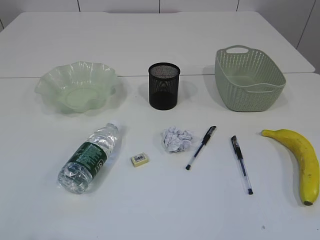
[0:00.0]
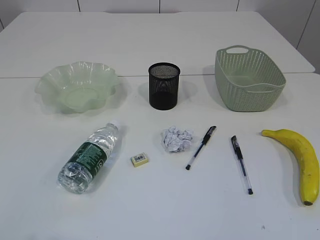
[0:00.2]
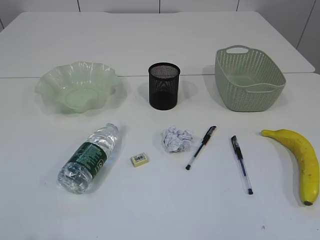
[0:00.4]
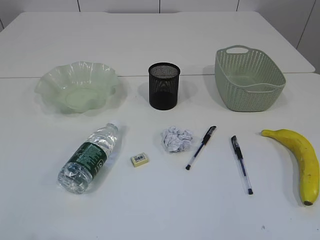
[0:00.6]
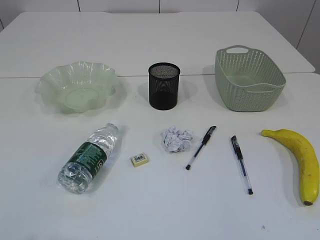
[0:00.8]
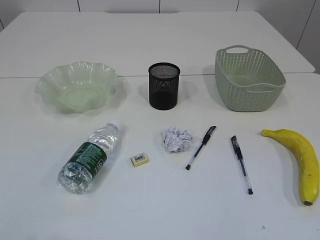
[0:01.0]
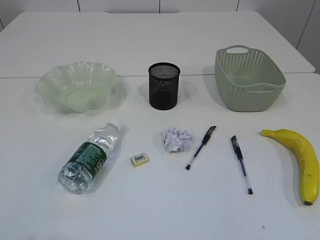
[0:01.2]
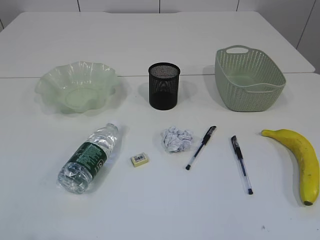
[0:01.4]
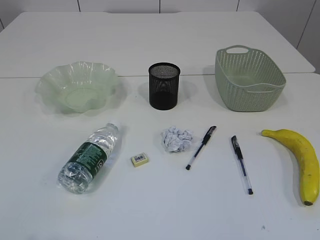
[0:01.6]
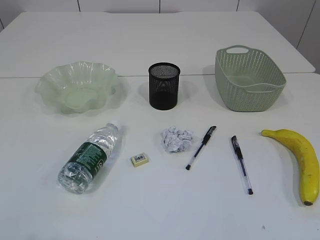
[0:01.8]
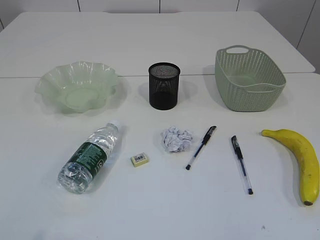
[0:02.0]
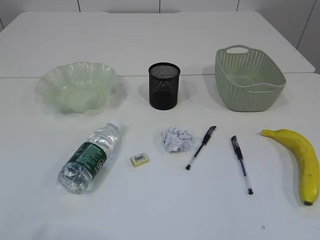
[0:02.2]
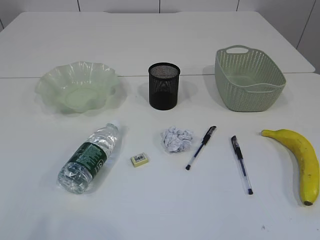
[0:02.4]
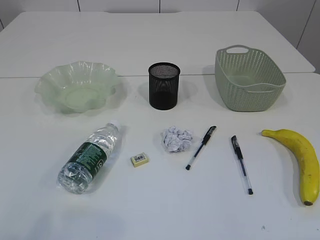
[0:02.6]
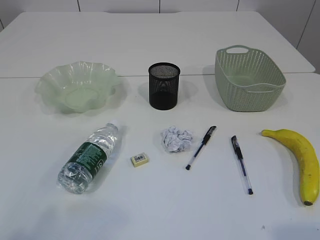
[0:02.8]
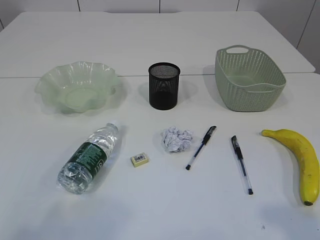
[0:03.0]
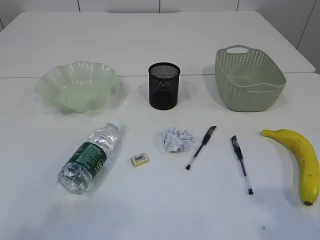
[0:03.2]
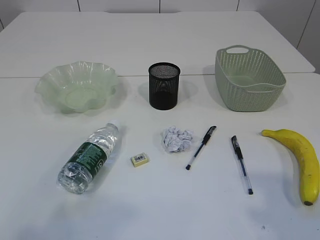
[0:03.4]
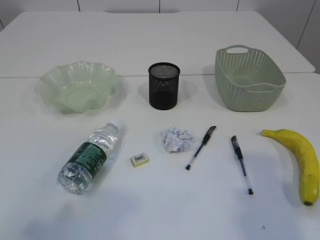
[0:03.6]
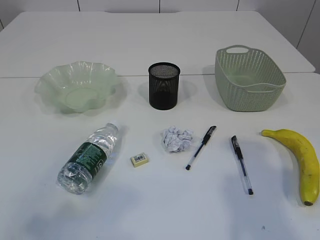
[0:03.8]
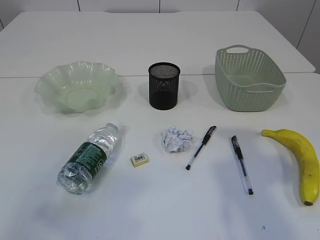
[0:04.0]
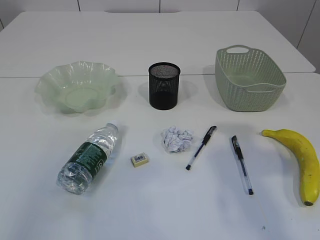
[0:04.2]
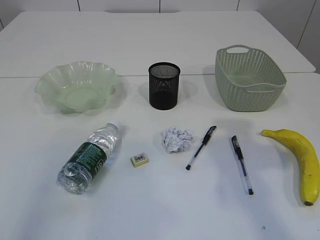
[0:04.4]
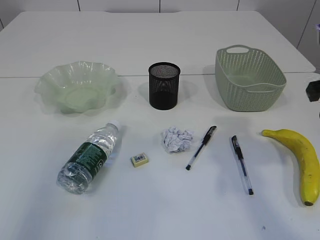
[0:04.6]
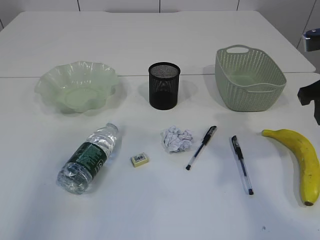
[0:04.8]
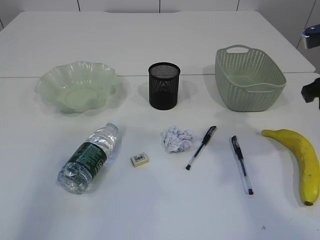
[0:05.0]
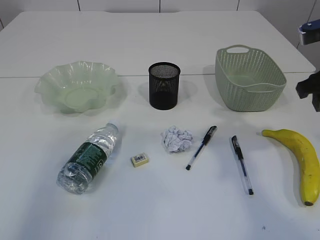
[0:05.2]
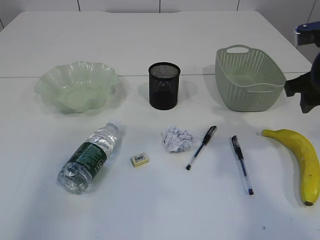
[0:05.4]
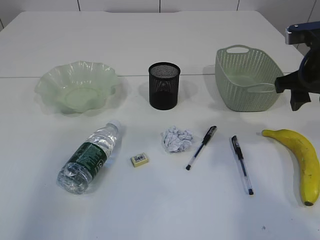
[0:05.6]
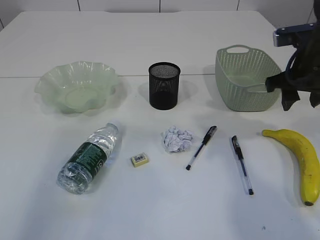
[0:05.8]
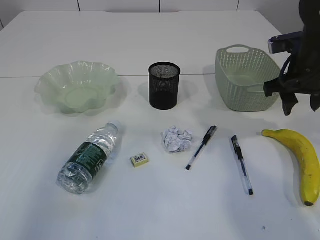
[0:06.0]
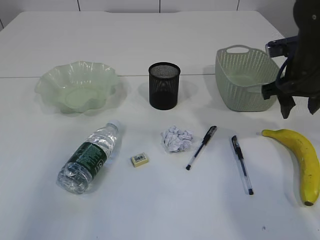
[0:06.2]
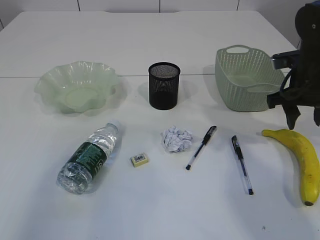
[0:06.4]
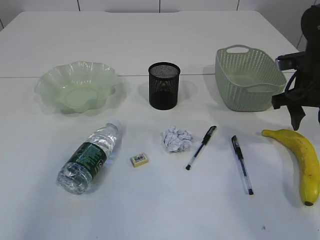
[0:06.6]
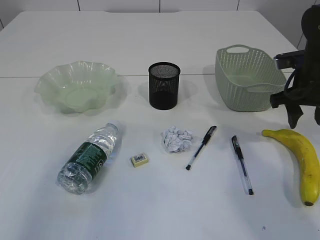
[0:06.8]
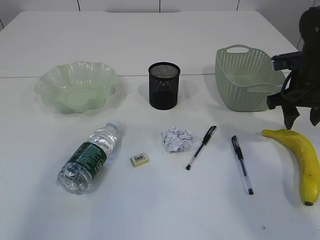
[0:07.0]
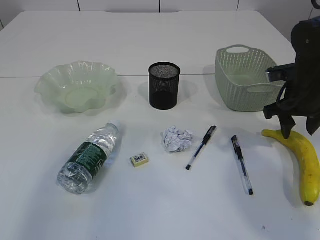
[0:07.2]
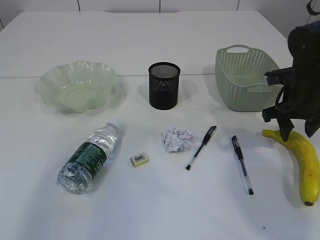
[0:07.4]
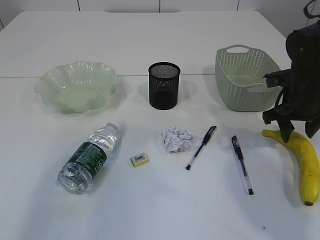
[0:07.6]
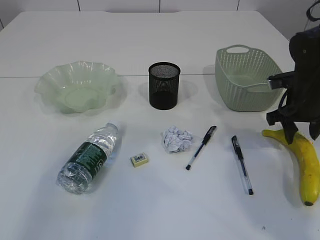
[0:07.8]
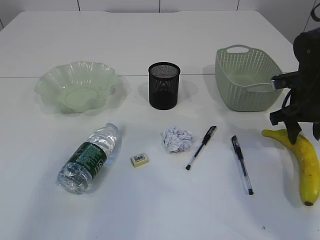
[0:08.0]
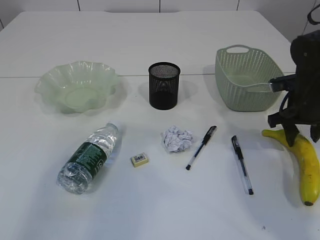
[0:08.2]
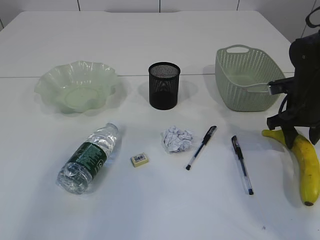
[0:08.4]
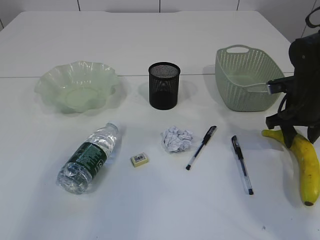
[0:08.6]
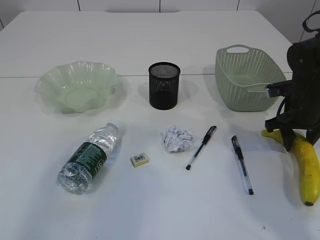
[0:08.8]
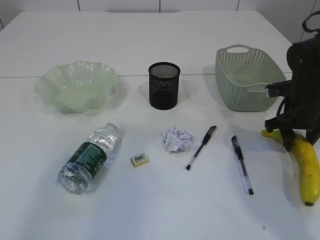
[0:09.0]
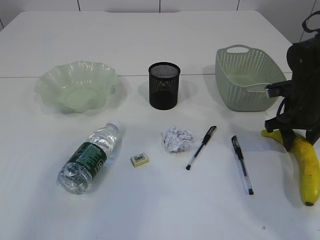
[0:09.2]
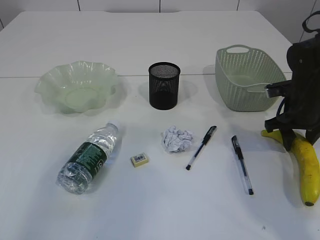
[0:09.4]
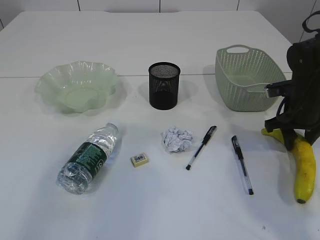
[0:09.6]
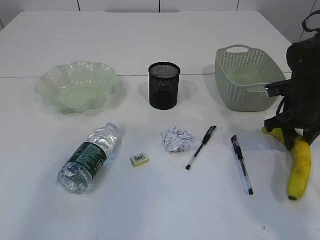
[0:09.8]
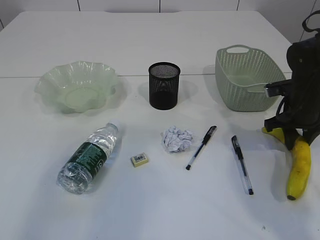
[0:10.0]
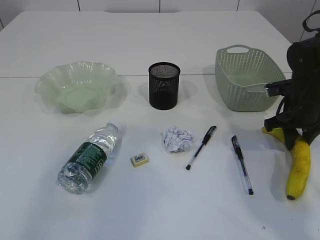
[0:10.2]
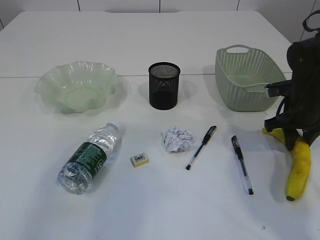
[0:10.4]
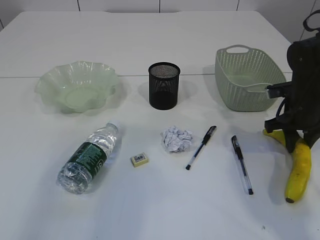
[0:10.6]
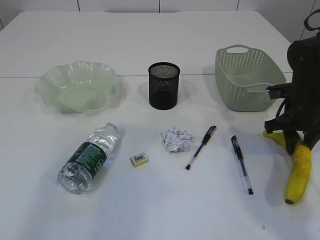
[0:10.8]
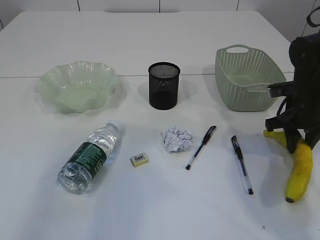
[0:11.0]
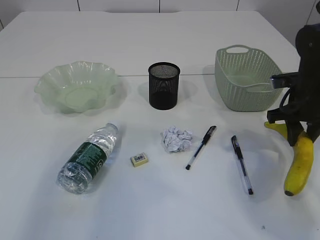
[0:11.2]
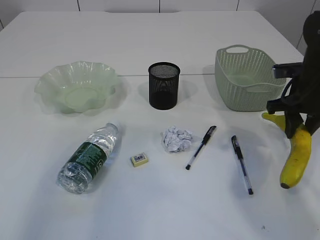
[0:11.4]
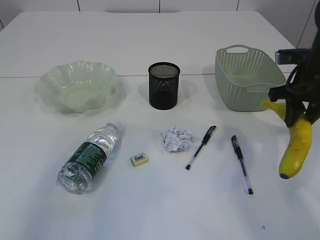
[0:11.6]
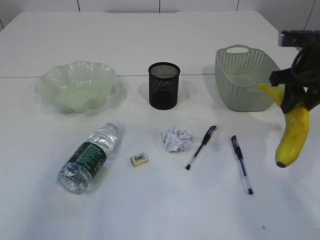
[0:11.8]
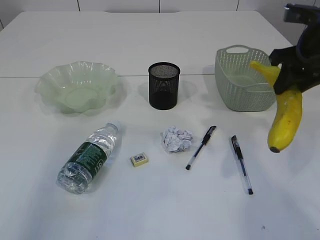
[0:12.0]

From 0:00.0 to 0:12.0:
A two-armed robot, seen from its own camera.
From 0:03.0 to 0:04.4: The right gripper moves forward, about 20 cm.
From 0:04.4 to 0:06.0: The right gripper travels forward and downward by about 15 cm.
From 0:06.0 to 0:07.6: The right gripper travels downward by some 5 cm.
From 0:07.6 to 0:09.0: There are only small adjustments of the grippers.
From 0:09.0 to 0:10.4: Neither gripper changes place.
From 0:10.4 to 0:12.0: The right gripper heads upward, covering some 15 cm.

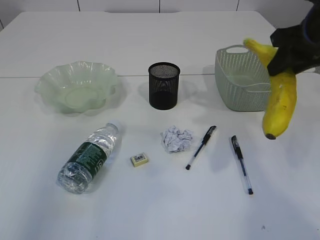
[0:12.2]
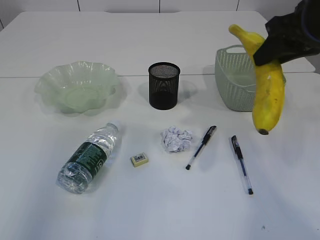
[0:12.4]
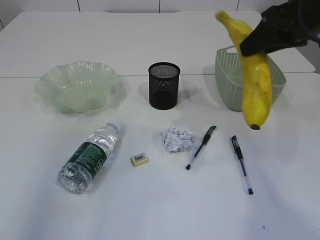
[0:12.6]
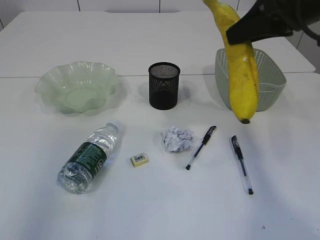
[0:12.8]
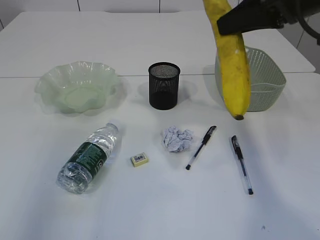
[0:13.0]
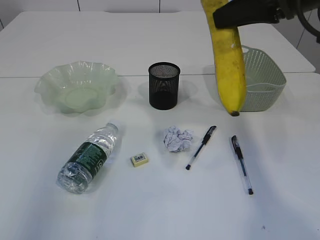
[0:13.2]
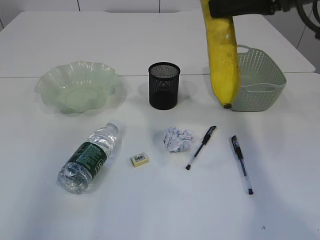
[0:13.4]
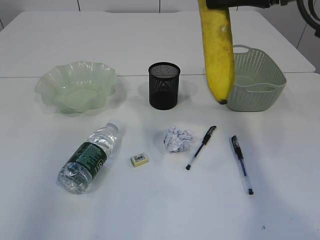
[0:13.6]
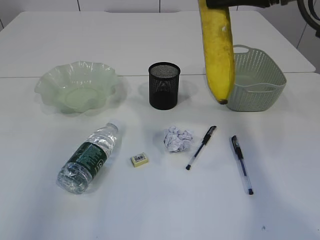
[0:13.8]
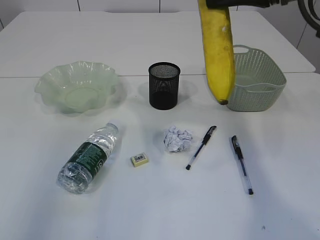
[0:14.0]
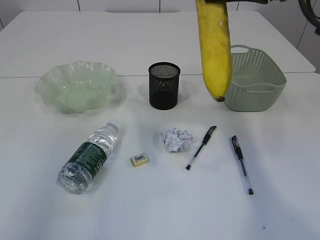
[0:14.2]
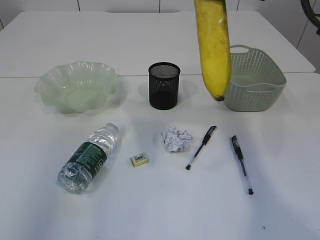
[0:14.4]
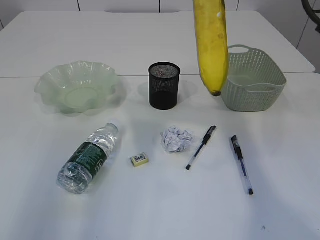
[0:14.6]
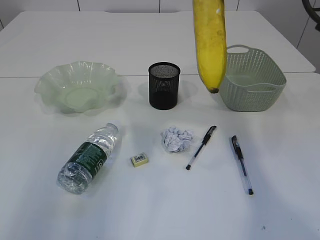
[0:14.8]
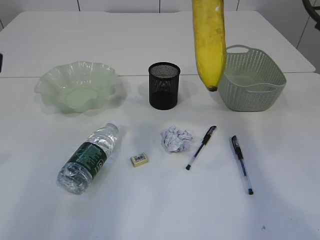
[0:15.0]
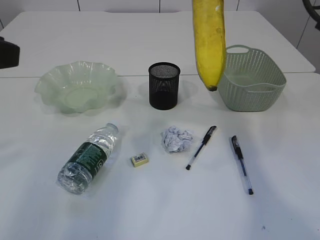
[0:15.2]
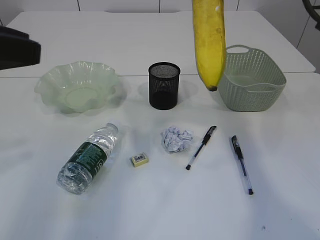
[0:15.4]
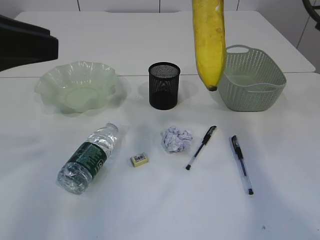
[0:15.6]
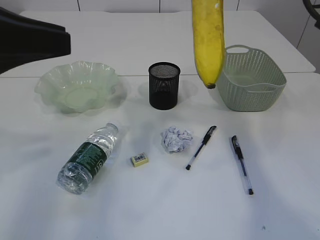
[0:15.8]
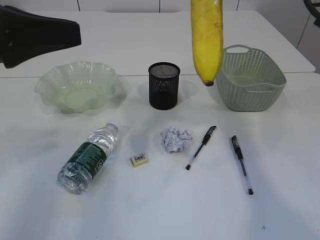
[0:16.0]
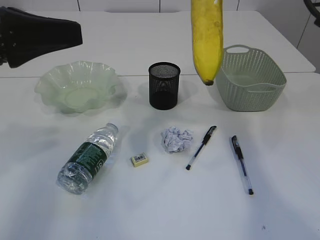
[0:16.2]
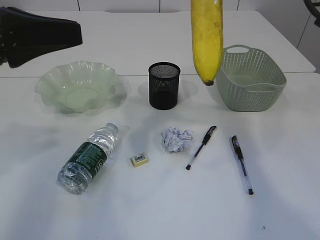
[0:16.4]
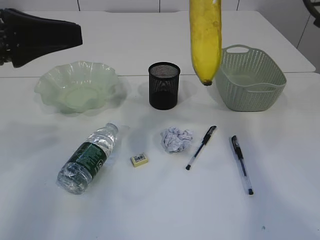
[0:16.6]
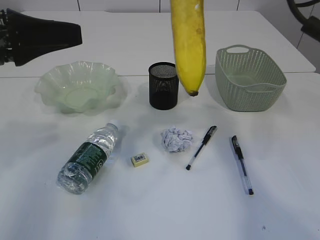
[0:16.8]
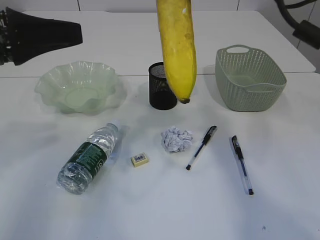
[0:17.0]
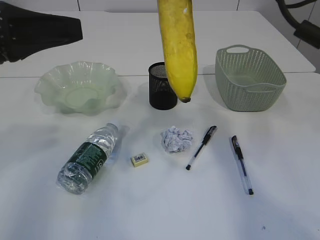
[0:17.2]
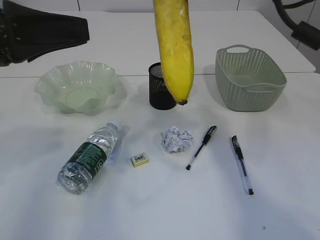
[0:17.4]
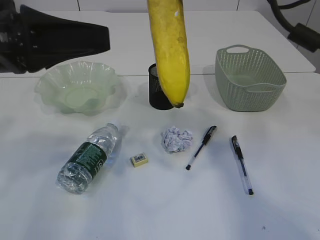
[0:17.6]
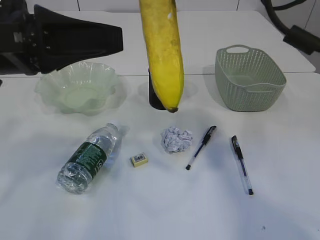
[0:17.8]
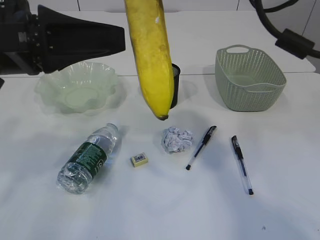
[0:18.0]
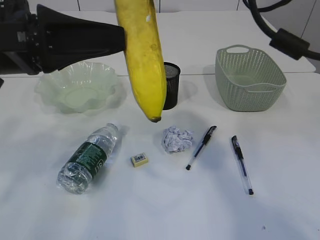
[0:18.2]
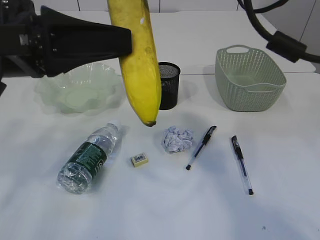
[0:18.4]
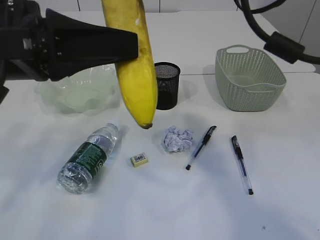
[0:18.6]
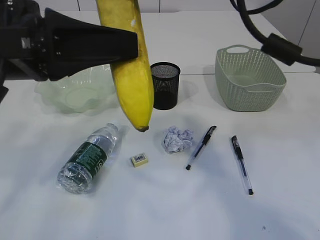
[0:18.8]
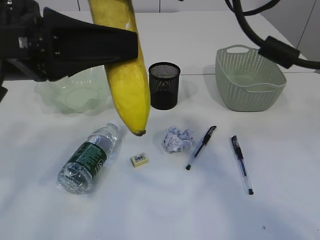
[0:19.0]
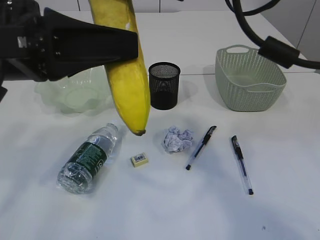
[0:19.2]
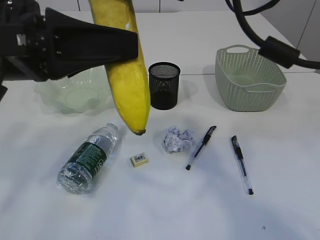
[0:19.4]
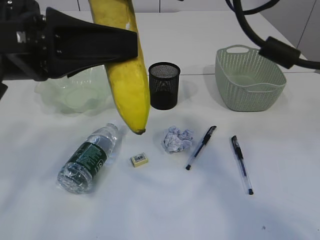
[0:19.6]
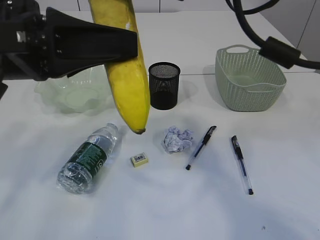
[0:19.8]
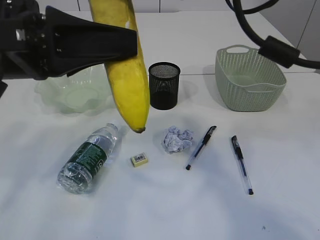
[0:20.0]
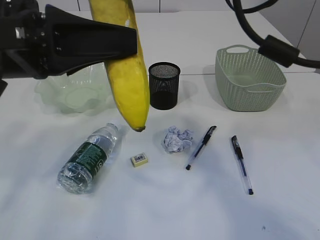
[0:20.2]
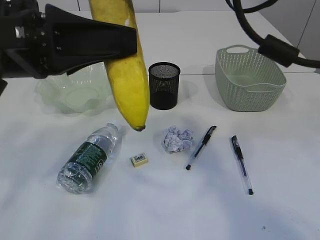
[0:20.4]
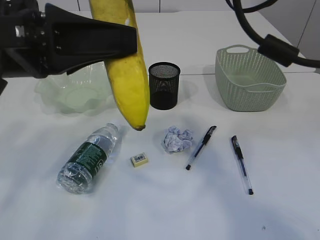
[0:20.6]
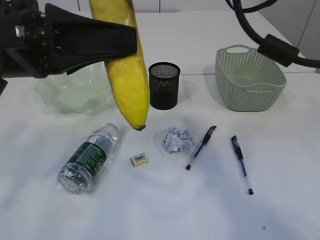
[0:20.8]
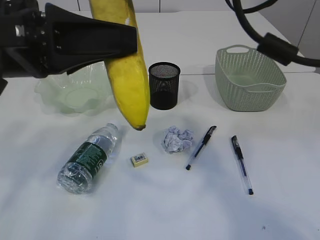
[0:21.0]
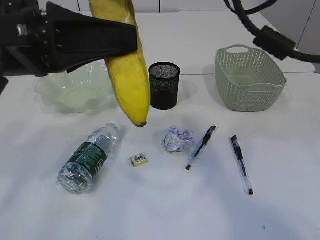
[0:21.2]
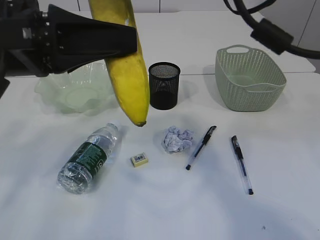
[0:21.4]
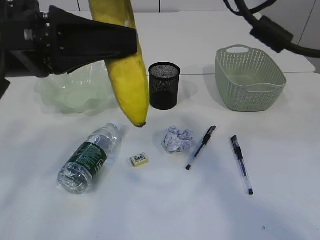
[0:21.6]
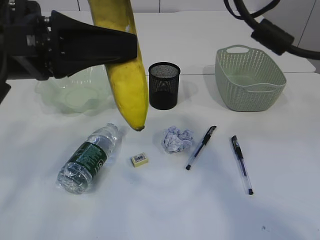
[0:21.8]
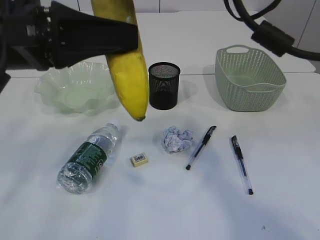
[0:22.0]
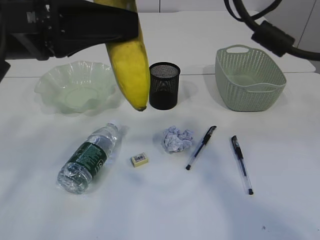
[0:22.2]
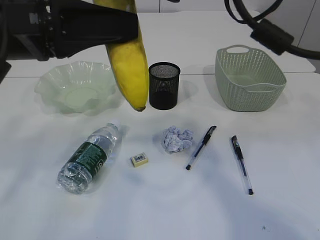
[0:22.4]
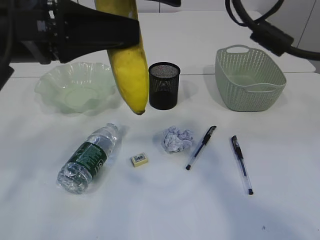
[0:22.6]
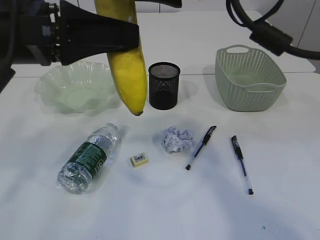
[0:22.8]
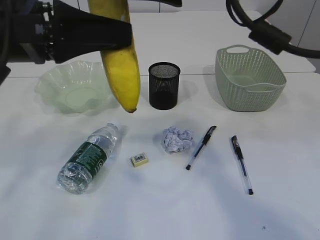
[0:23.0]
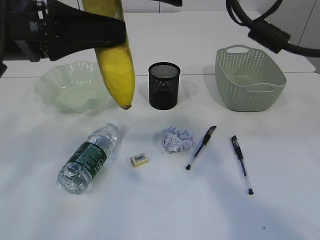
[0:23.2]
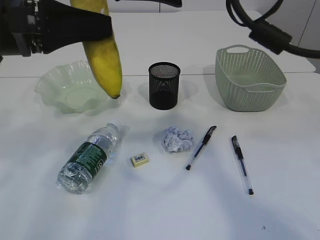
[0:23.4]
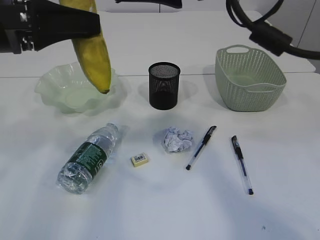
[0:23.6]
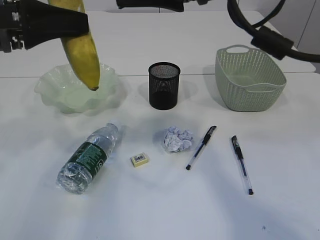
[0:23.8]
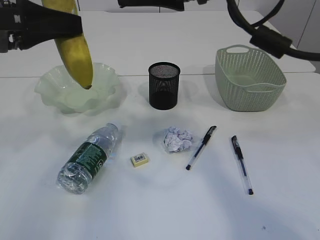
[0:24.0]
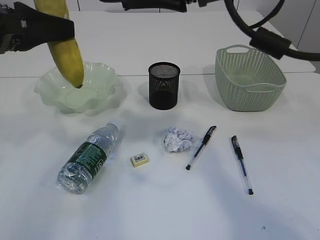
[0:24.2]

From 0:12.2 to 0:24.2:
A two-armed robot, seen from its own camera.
Step, from 0:12.2 to 0:23.0: Hand over the banana.
From 0:12.2 to 0:13.8: The right gripper heads upward and to the left, covering roughly 10 cm.
From 0:13.8 to 0:15.2: The left gripper shifts some 5 cm downward.
From 0:15.2 to 0:16.6: The left gripper is displaced forward by roughly 5 cm.
From 0:16.6 to 0:18.2: The right gripper is displaced to the left by roughly 10 cm. The left gripper shifts some 5 cm to the right.
From 0:18.2 to 0:19.8: The left gripper closes.
From 0:19.8 to 0:22.6: The grippers make only small movements.
From 0:22.6 to 0:24.2: The left gripper moves to the left, approximately 10 cm.
